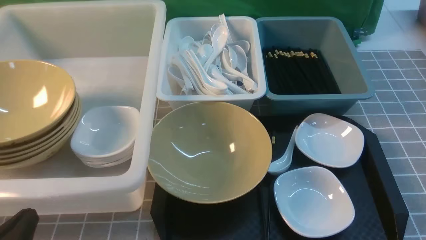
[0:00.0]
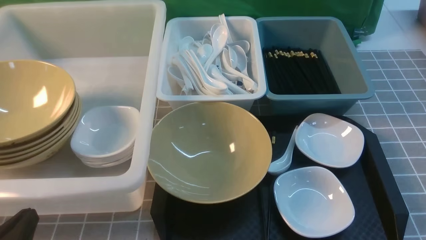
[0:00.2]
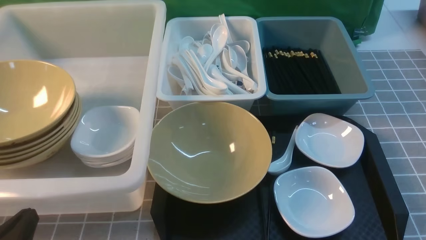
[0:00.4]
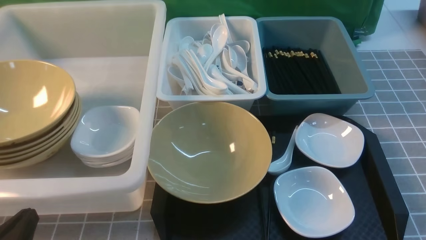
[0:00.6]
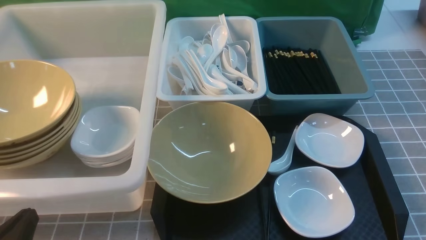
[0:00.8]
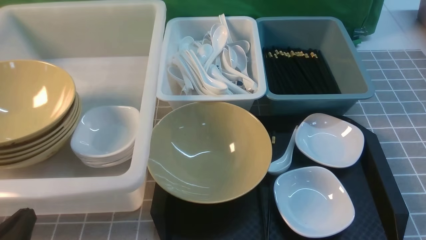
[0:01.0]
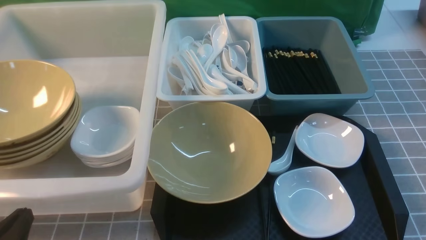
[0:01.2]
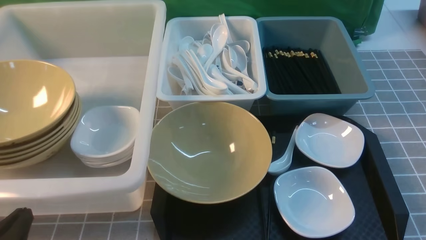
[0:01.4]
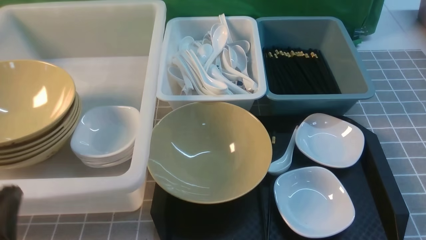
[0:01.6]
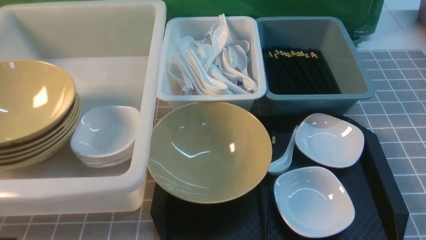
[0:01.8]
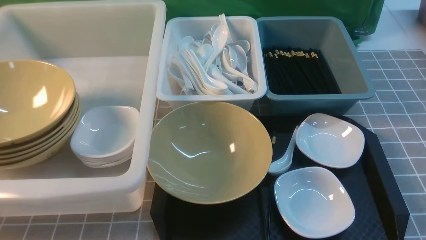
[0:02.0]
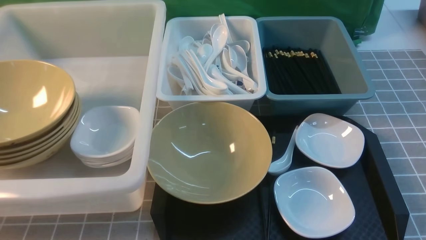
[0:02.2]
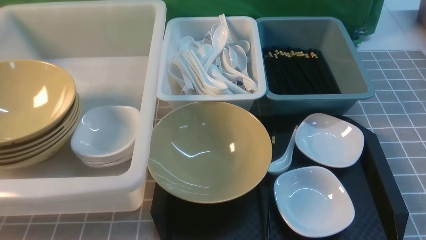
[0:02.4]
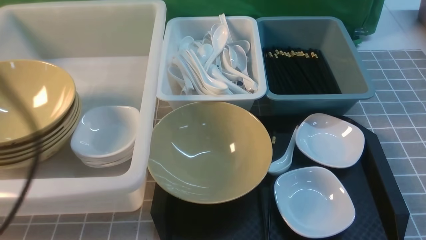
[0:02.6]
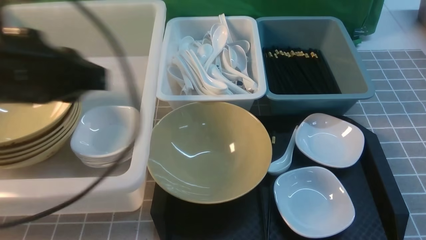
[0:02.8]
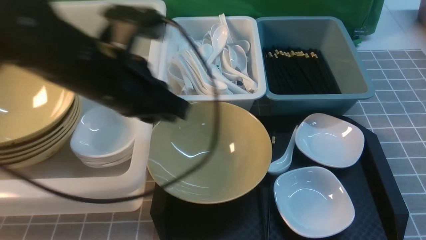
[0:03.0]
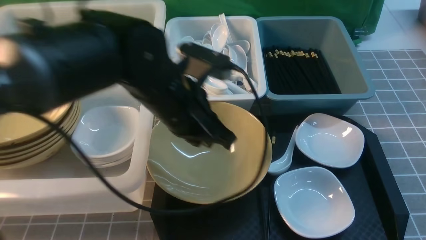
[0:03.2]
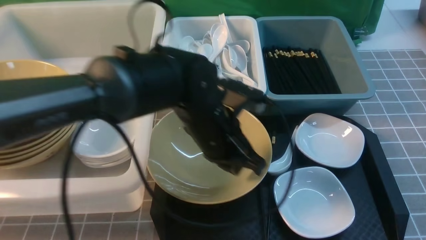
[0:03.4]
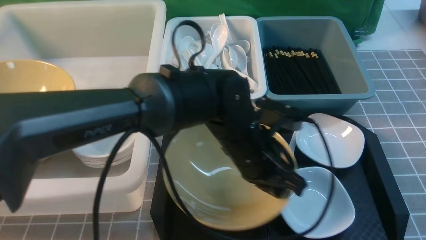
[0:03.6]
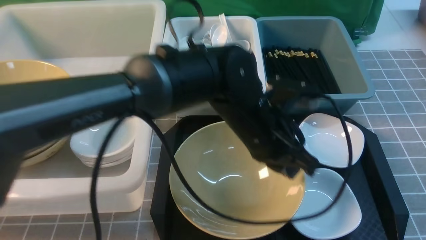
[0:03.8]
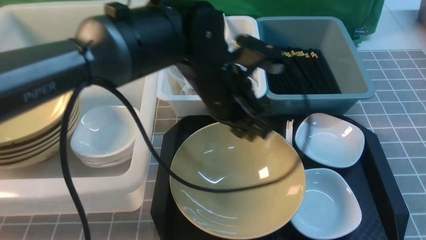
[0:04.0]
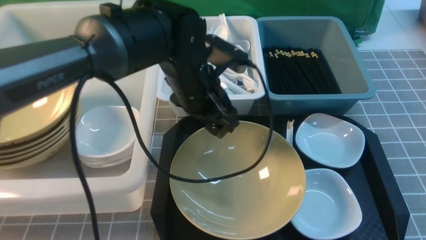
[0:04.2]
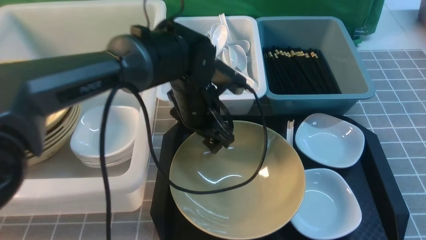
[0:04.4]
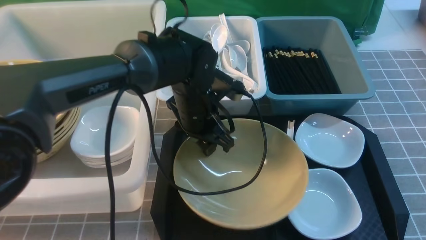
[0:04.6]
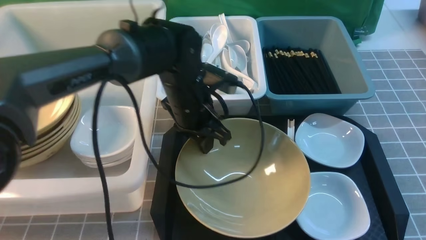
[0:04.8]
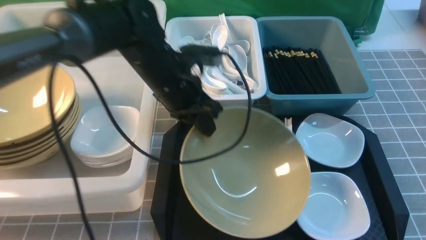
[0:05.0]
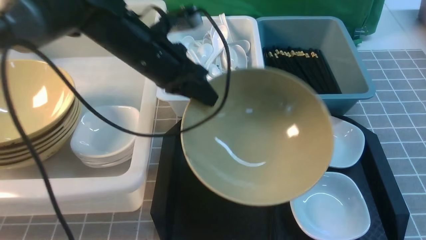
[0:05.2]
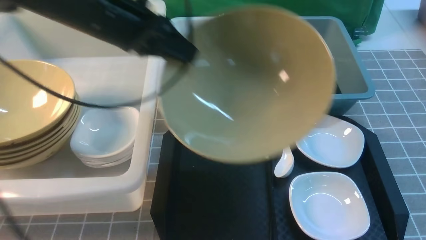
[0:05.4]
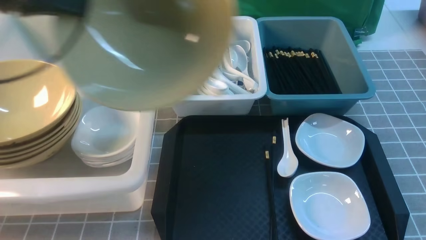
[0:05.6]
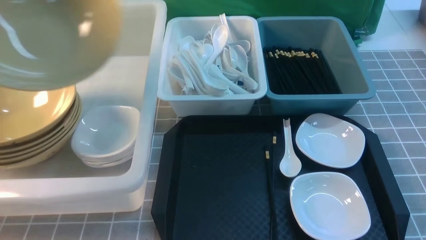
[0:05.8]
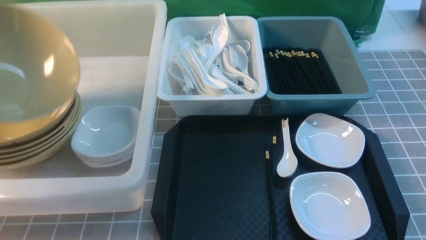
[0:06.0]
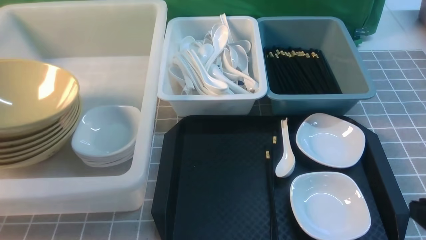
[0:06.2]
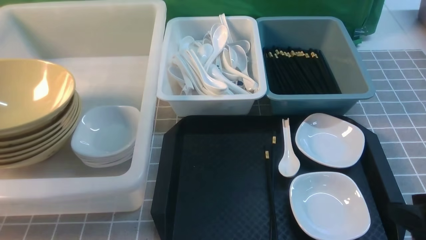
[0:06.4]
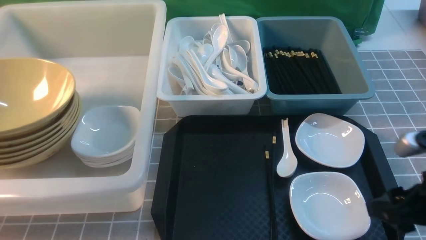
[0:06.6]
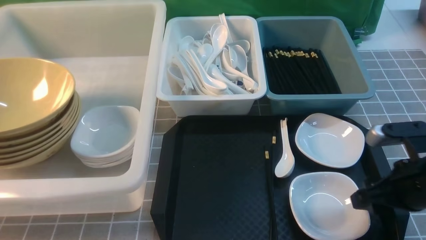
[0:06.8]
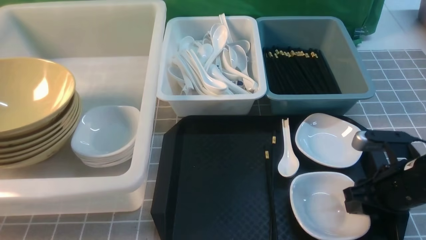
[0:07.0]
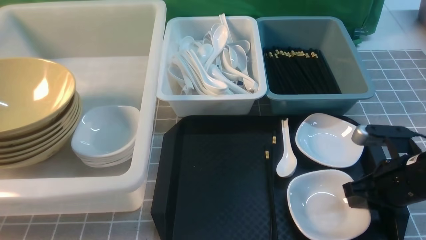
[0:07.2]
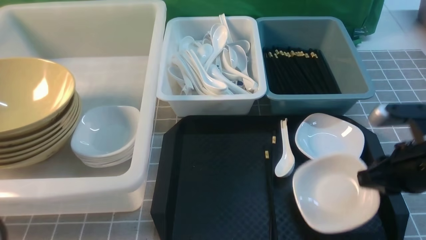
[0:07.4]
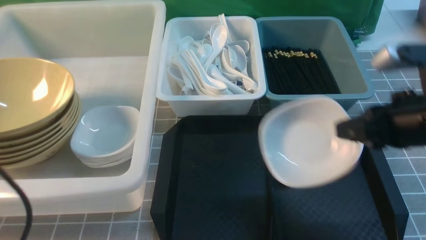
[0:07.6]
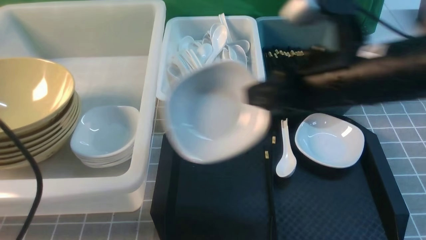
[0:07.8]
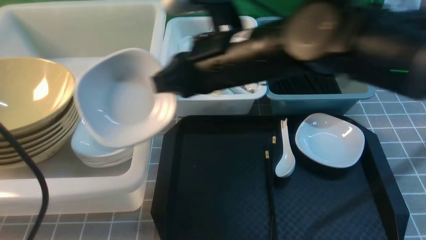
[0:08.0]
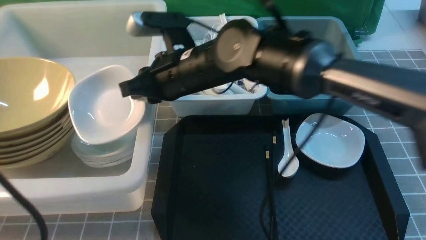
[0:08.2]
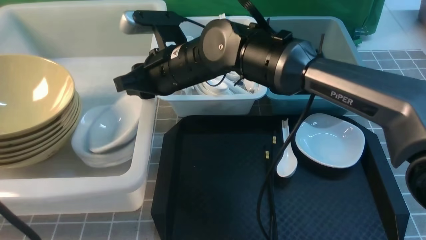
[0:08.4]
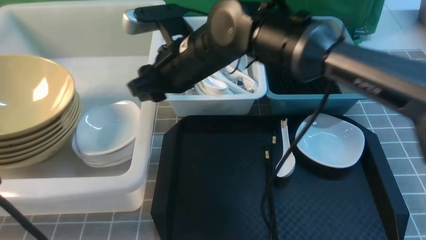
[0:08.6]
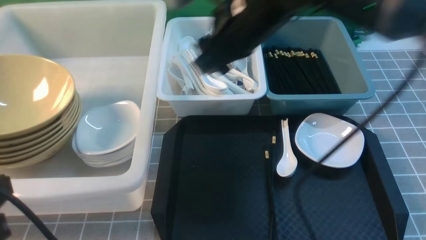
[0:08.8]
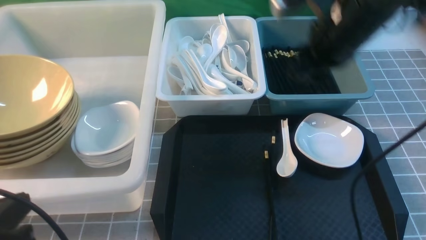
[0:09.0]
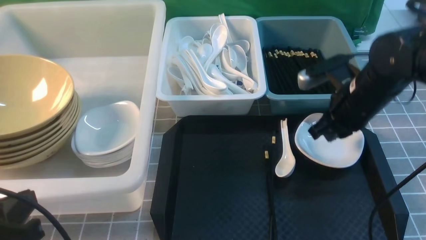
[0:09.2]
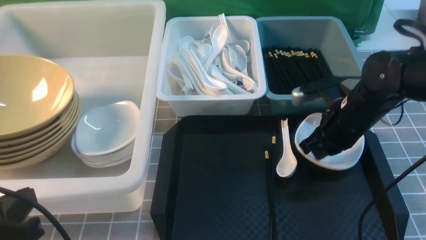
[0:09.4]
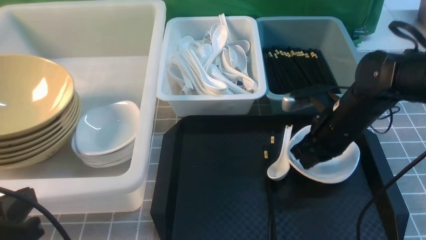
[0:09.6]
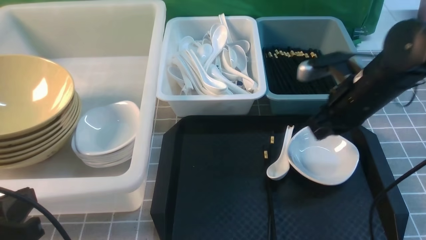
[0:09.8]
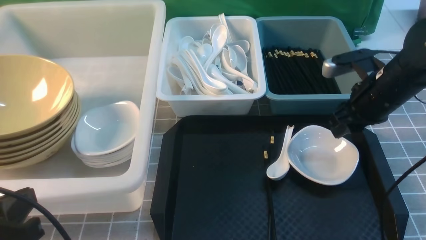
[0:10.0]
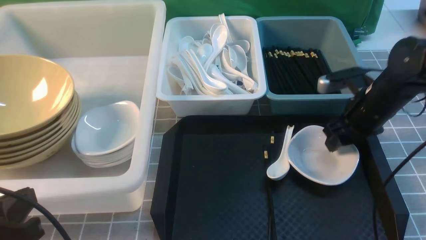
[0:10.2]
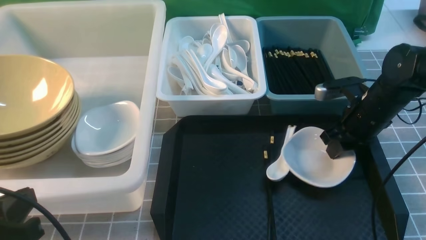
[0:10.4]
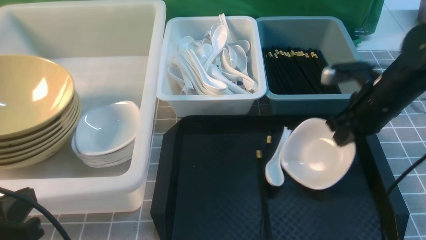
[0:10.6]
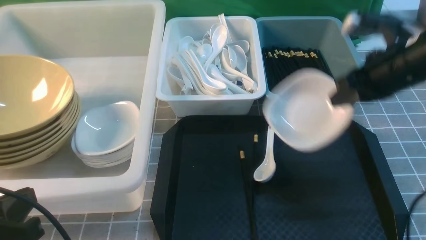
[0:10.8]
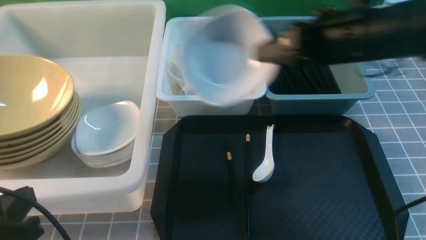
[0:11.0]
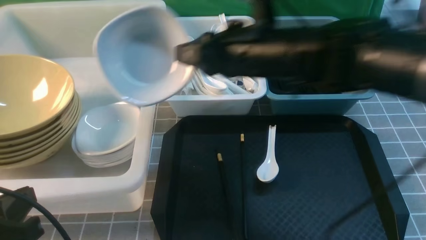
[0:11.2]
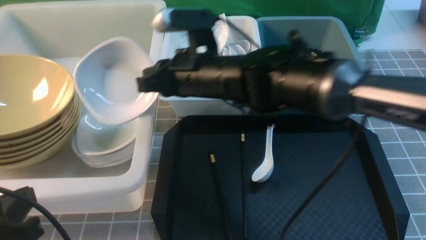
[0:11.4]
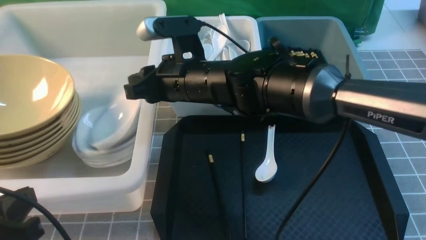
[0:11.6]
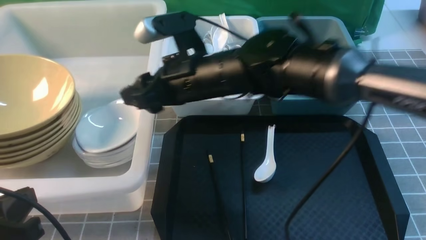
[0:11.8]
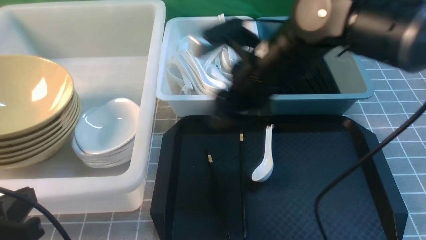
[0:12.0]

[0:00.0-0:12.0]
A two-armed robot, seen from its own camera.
Task of the whole recording: on grey table put chopsticks spoon bowls plates into blue grey white boxes.
Step, 0:00.0 to 0:04.6: use the left arm to grab the yellow noodle bowl on the left.
Step, 0:04.8 to 0:06.6: use the left arm to put the noodle bowl into the large storage box on the left.
Step, 0:06.8 to 0:07.2: use the right arm to grab the plate.
Step, 0:07.6 to 0:08.6: use the right arm to put the plate into the large storage box on the left.
Step, 0:08.8 to 0:10.6: use the right arm to grab the plate.
Step, 0:10.8 to 0:11.8: use the right arm to put the plate into the large storage box on the left.
0:01.6 to 0:03.0: The left gripper heads forward, to the right and upward, covering some 30 cm, while the right gripper moves upward, roughly 5 cm.
0:03.0 to 0:04.4: The left gripper moves downward, forward and to the right, some 15 cm, and opens up.
0:04.4 to 0:06.0: The left gripper heads to the left, covering approximately 40 cm, and closes its fingers.
0:06.0 to 0:07.6: The left gripper is displaced backward and to the right by some 25 cm, and opens and closes again, while the right gripper goes approximately 15 cm forward and to the left, and opens, then closes once more.
0:07.6 to 0:09.0: The right gripper heads forward, covering roughly 10 cm, travels to the left and back again, some 25 cm each way, and opens up, while the left gripper moves downward, some 5 cm.
0:09.0 to 0:10.4: The right gripper is displaced downward and to the right by roughly 15 cm, and closes, then reopens.
0:10.4 to 0:12.0: The right gripper shifts roughly 20 cm to the left, and opens its fingers.

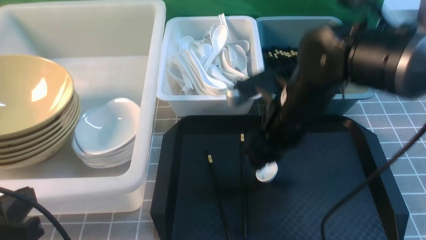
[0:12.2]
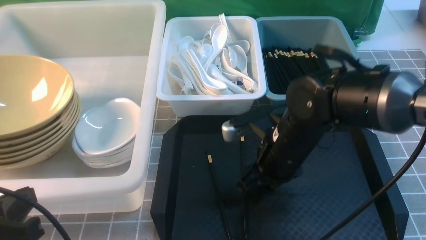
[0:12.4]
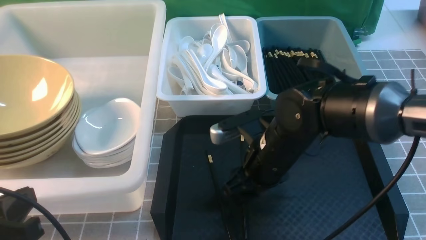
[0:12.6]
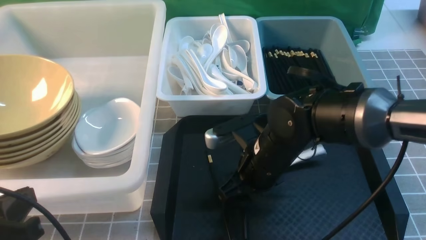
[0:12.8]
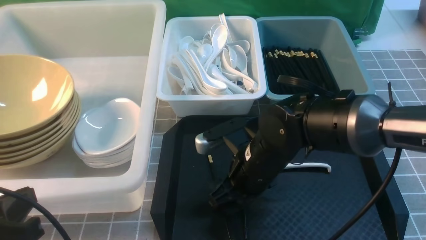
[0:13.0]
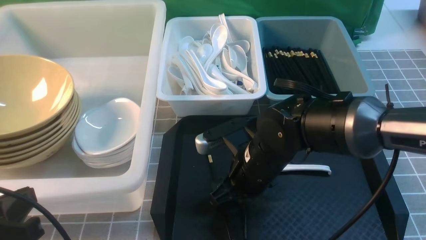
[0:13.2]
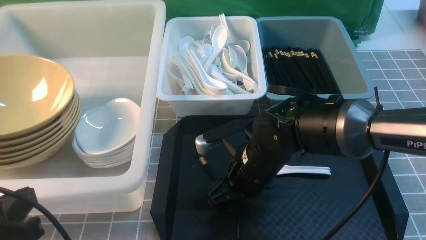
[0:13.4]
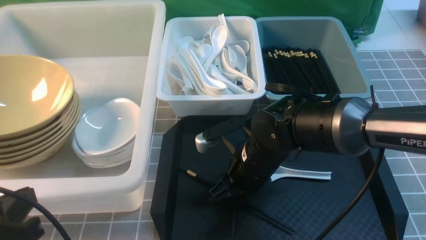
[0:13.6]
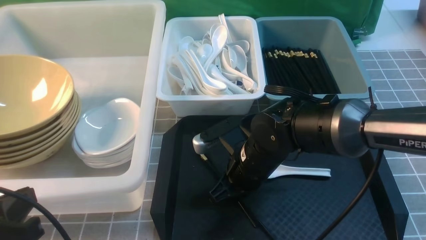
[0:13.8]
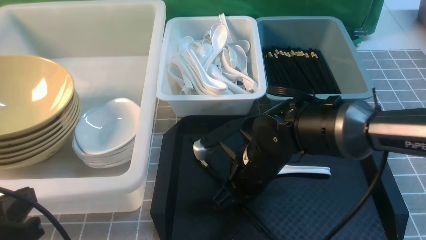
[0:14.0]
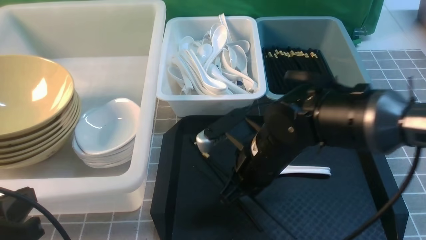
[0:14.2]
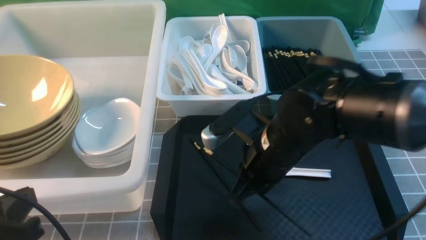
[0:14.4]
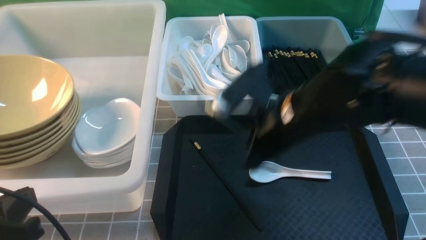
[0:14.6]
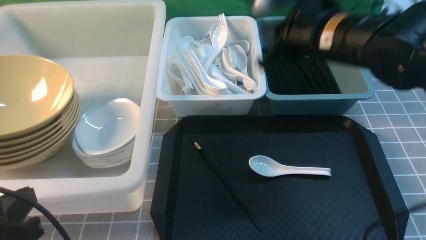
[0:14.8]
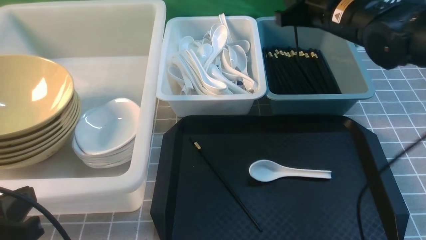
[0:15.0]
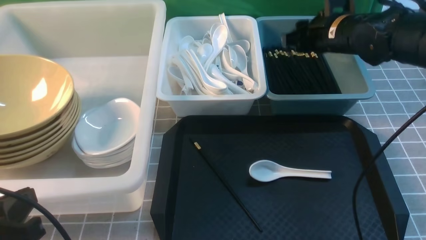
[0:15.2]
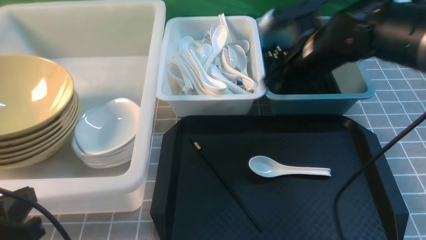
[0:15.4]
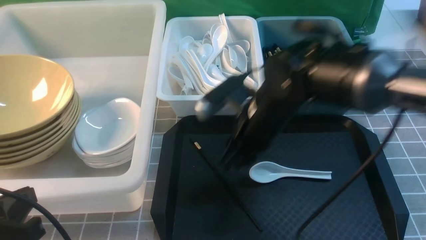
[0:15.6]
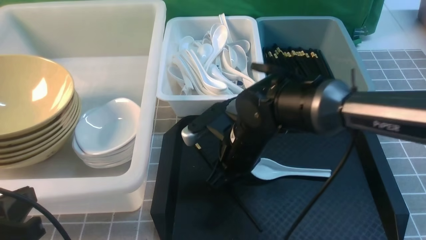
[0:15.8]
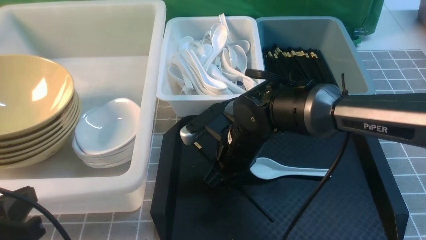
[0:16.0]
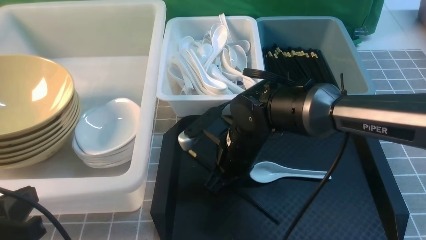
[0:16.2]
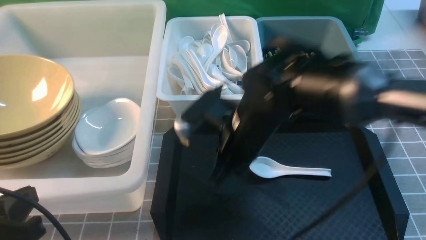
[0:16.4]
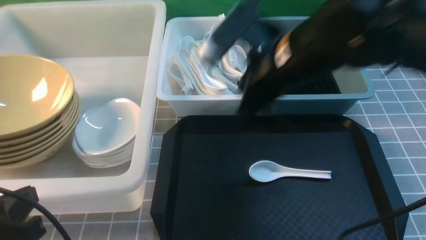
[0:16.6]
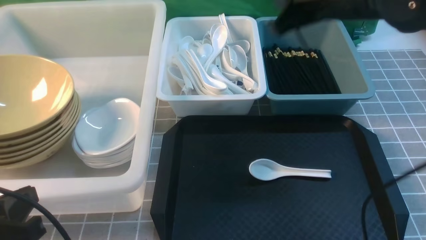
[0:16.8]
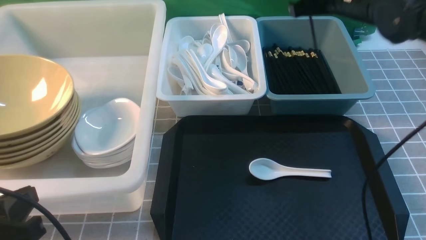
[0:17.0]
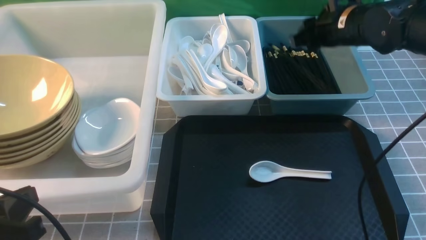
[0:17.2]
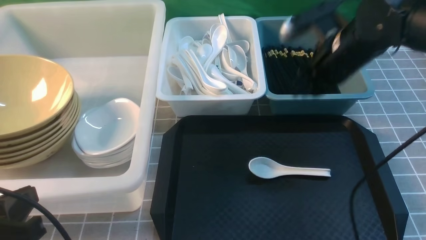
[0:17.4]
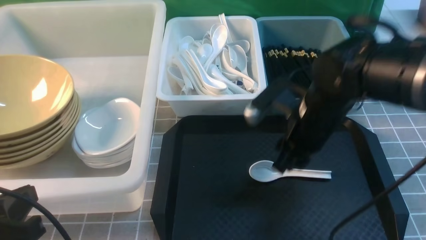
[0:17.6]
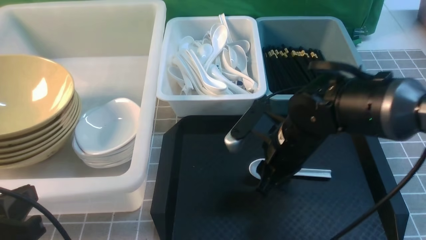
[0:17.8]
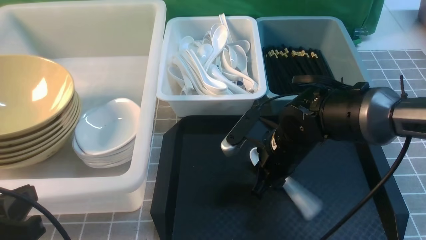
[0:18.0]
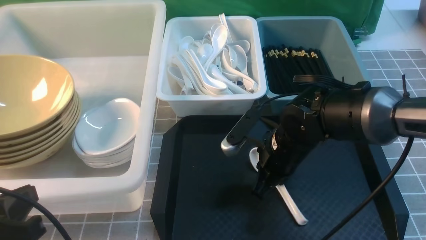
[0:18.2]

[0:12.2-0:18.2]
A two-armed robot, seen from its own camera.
Task of the whole recording: on grey table put chopsticks spoon bowls plates into blue grey white boxes.
Step, 0:12.2 to 0:14.0: use the right arm to grab a chopstick.
Step, 0:14.2 to 0:15.2: use the right arm to put a chopstick into the small storage box on the right.
Step, 0:15.4 to 0:16.2: use the right arm to grab a chopstick.
Step, 0:16.4 to 0:17.0: use the right arm to put a chopstick into the small storage box on the right.
0:12.2 to 0:13.8: The right gripper shifts roughly 5 cm downward, and closes its fingers.
0:13.8 to 0:15.2: The right gripper shifts about 20 cm forward, to the right and upward, and opens up.
0:15.2 to 0:16.6: The right gripper heads backward and to the left, covering about 10 cm, goes downward and returns, some 10 cm each way, and closes up.
0:16.6 to 0:18.2: The right gripper is displaced downward by some 15 cm, and opens and closes again.
